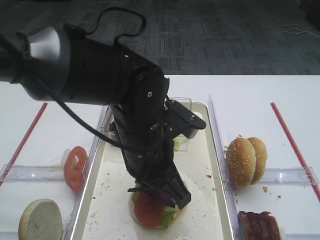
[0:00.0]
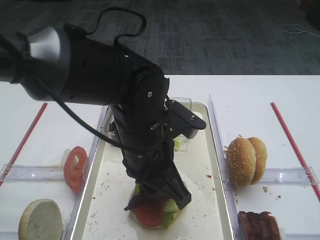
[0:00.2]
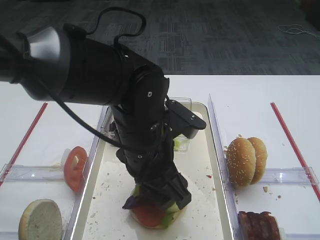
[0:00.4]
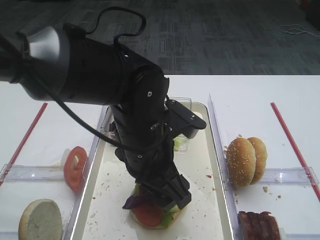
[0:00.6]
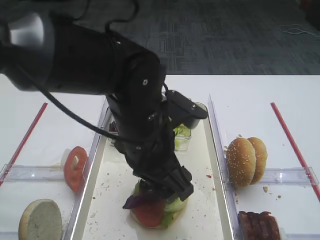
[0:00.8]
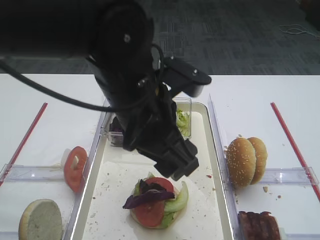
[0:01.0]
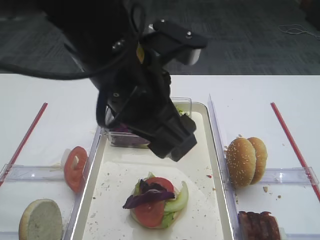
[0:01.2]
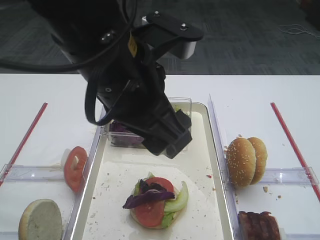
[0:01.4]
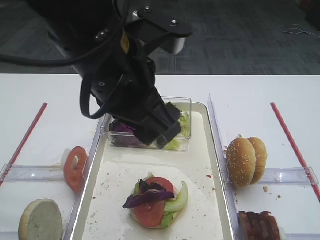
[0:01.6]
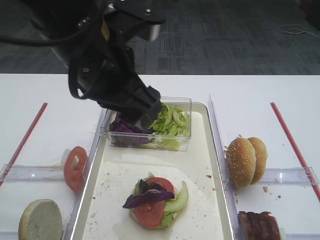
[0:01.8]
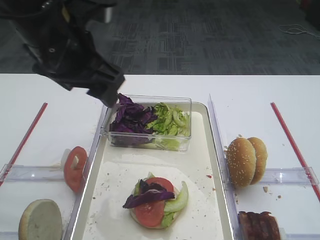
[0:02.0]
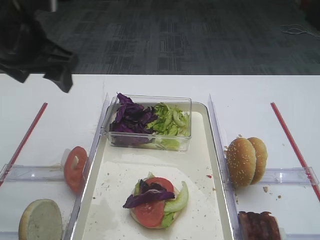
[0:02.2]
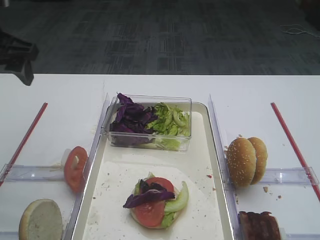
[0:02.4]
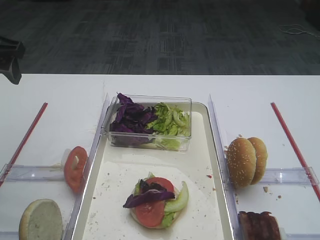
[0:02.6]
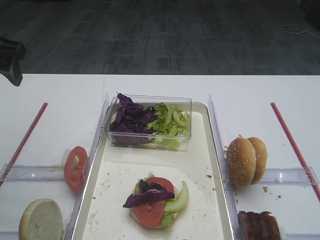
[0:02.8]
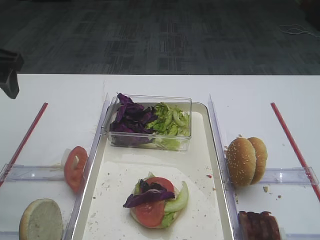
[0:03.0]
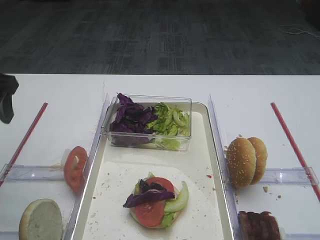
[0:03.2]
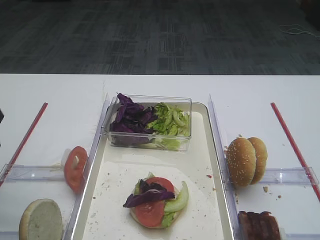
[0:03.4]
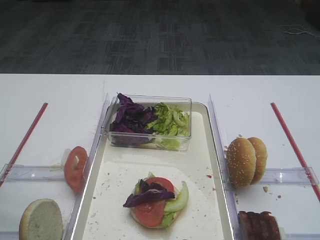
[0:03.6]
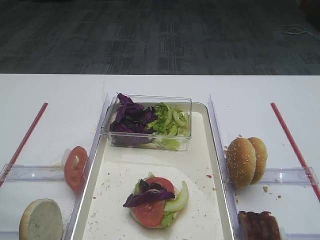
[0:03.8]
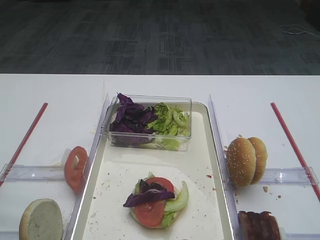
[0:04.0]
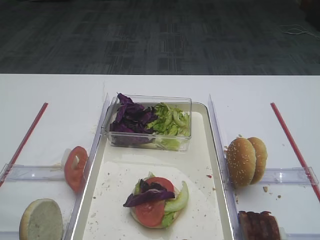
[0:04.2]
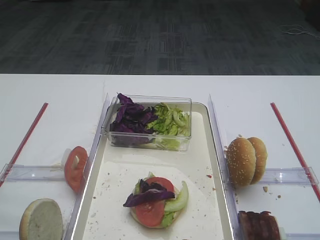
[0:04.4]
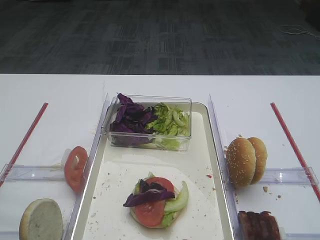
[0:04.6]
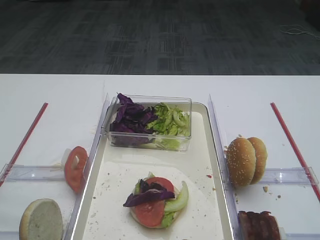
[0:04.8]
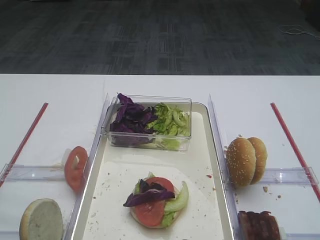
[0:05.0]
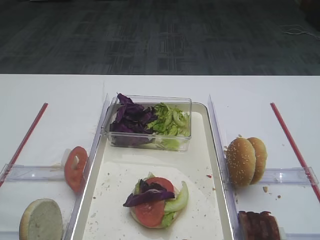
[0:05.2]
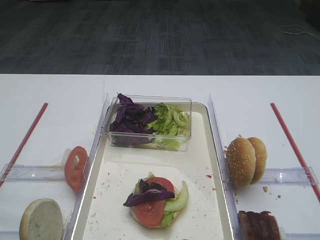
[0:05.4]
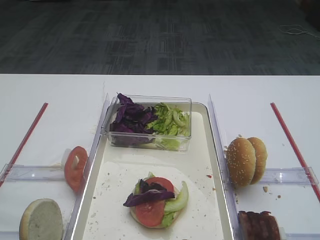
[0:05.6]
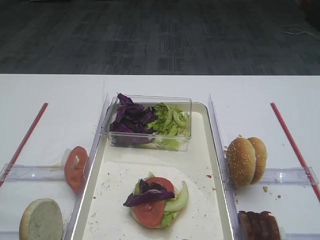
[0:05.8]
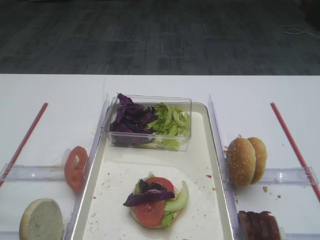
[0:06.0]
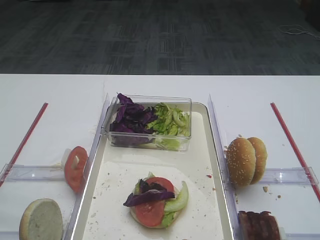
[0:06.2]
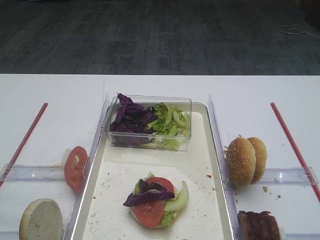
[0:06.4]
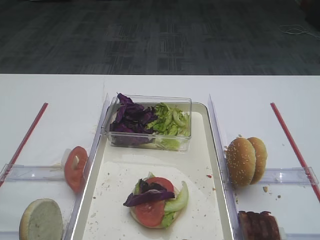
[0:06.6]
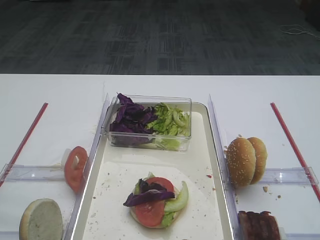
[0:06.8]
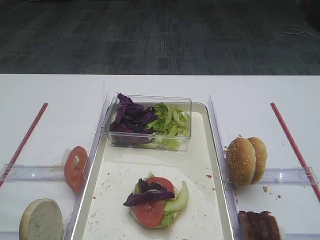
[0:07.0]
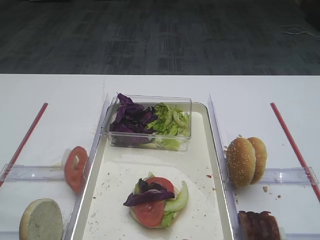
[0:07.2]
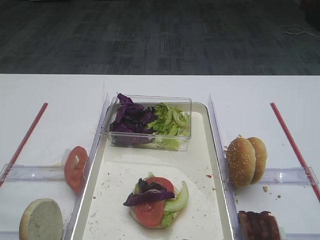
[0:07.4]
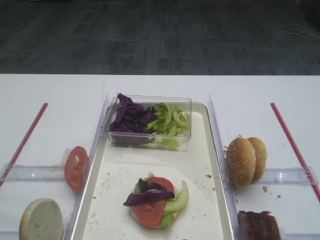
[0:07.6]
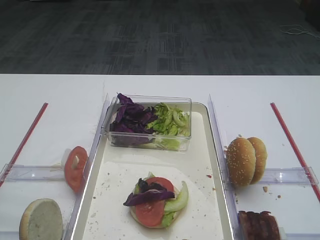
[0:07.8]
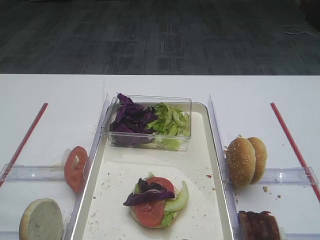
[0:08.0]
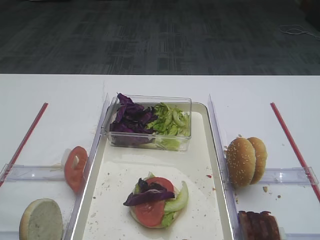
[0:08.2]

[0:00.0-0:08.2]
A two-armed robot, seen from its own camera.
0:00.0 to 0:01.6: The left gripper shifts roughly 10 cm upward, and opens.
0:01.6 to 0:03.2: The left gripper goes approximately 25 cm to the left.
0:03.2 to 0:05.0: The left gripper goes some 30 cm backward.
0:05.0 to 0:08.2: Both grippers stay about where they are.

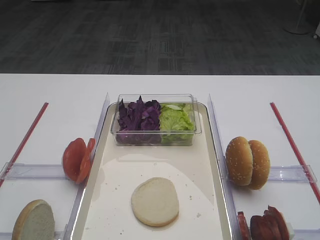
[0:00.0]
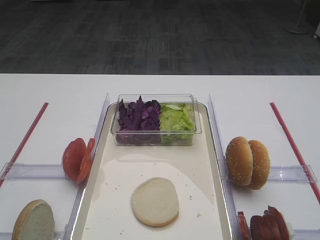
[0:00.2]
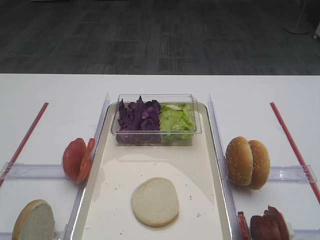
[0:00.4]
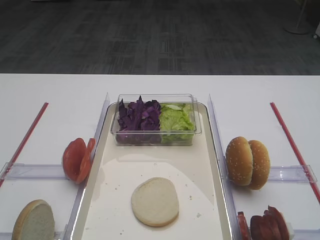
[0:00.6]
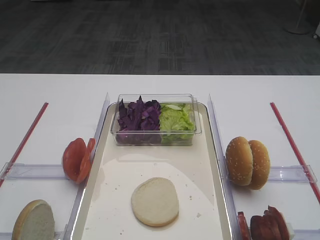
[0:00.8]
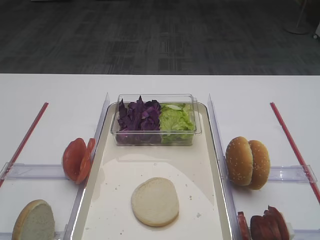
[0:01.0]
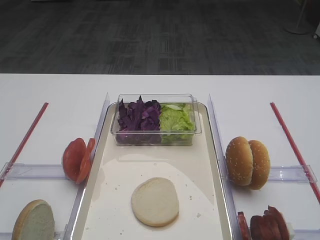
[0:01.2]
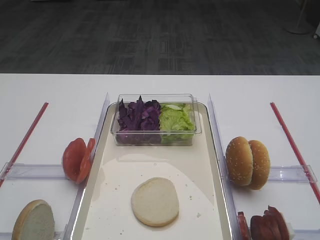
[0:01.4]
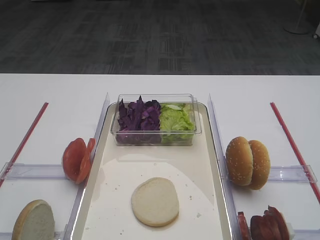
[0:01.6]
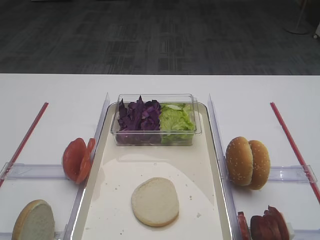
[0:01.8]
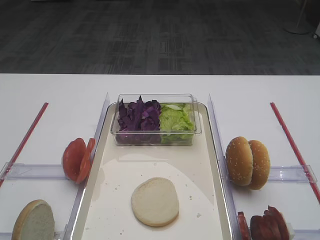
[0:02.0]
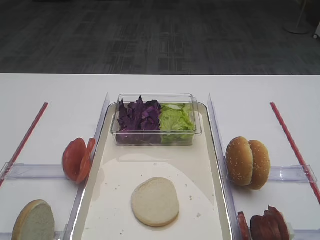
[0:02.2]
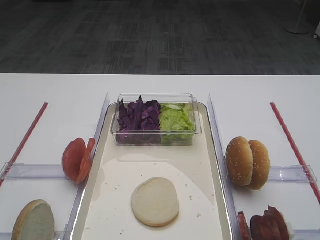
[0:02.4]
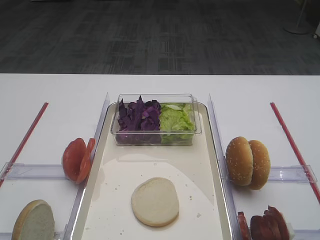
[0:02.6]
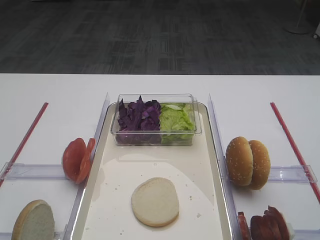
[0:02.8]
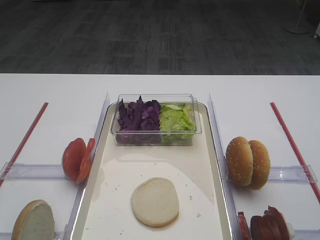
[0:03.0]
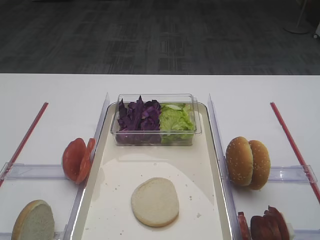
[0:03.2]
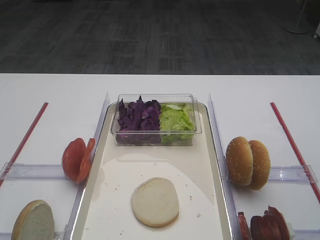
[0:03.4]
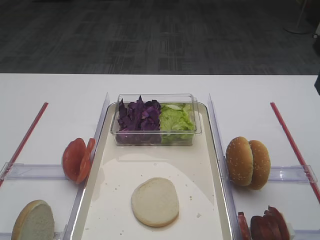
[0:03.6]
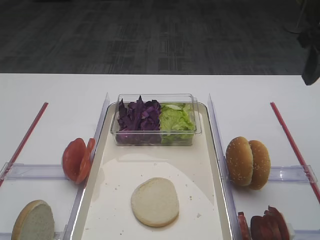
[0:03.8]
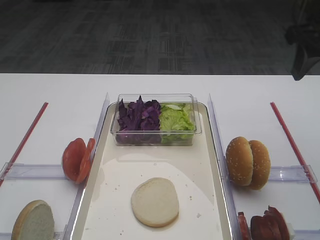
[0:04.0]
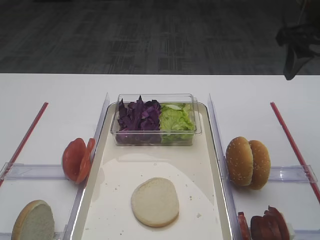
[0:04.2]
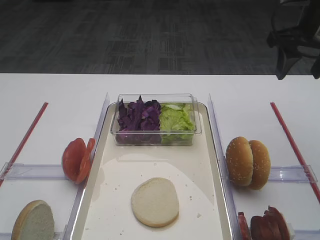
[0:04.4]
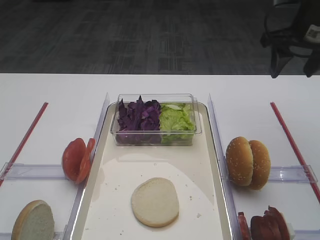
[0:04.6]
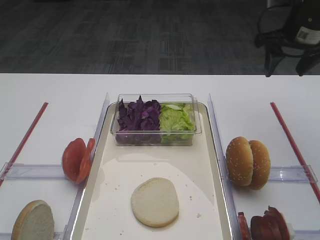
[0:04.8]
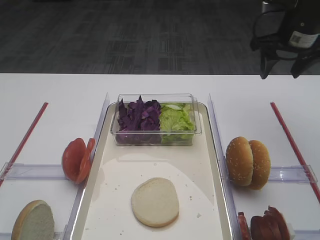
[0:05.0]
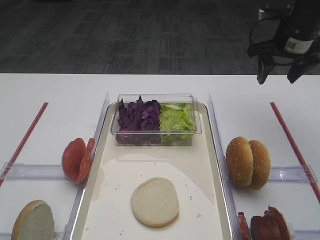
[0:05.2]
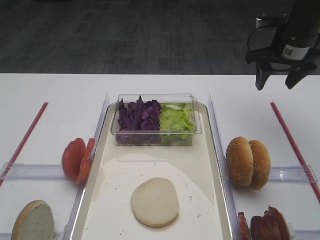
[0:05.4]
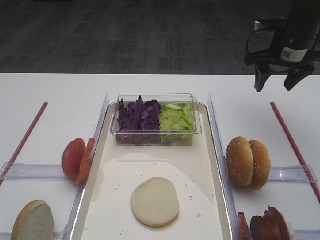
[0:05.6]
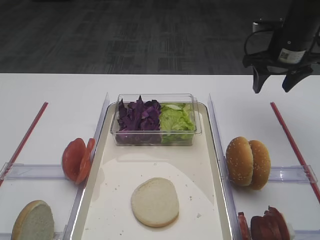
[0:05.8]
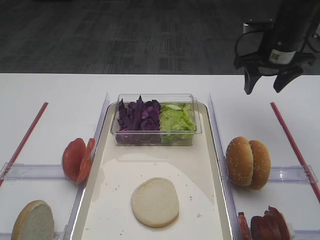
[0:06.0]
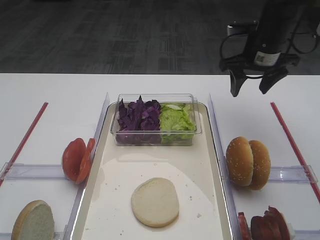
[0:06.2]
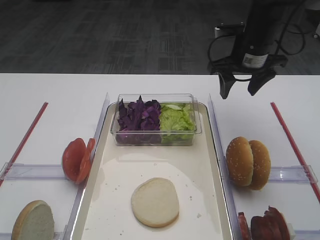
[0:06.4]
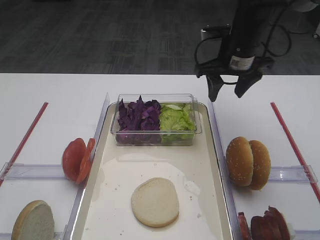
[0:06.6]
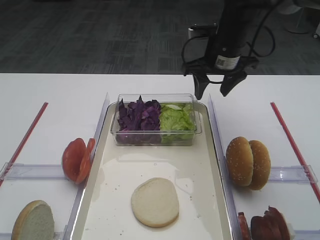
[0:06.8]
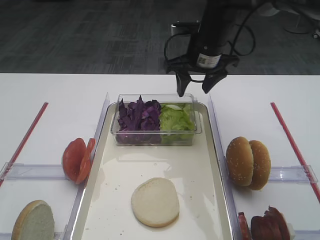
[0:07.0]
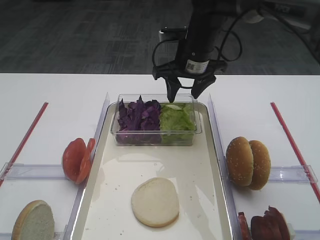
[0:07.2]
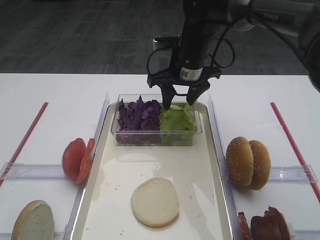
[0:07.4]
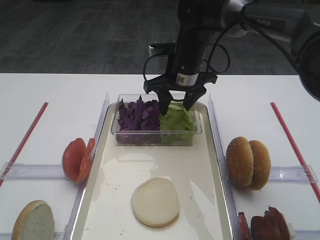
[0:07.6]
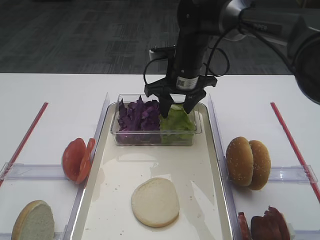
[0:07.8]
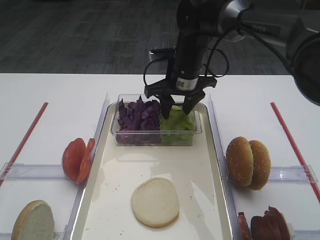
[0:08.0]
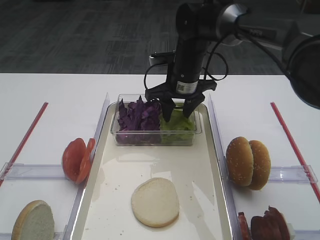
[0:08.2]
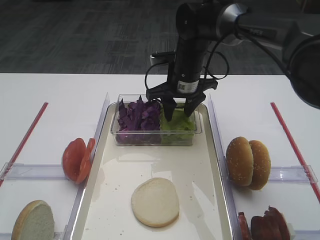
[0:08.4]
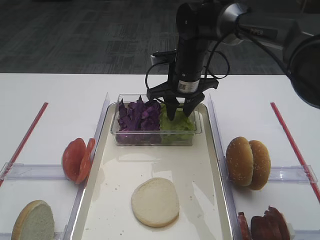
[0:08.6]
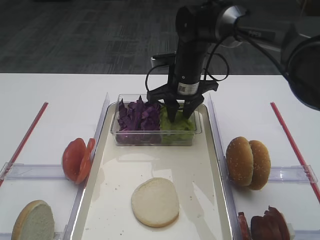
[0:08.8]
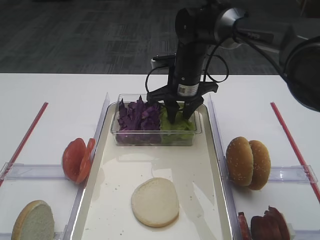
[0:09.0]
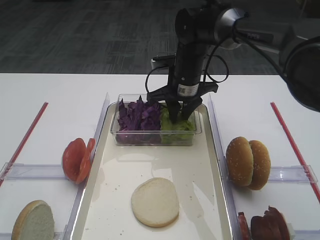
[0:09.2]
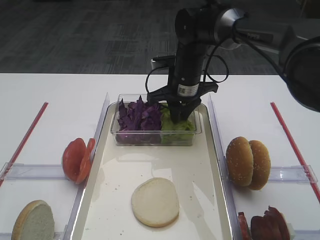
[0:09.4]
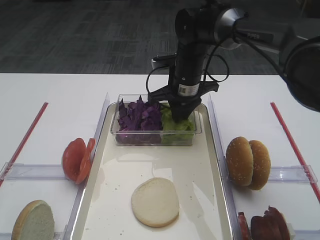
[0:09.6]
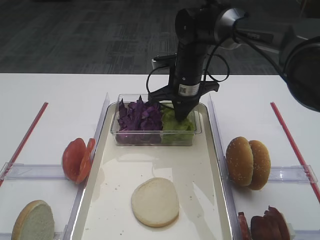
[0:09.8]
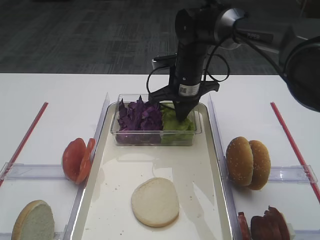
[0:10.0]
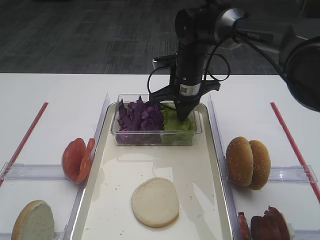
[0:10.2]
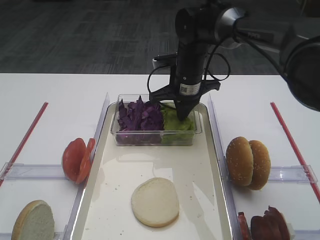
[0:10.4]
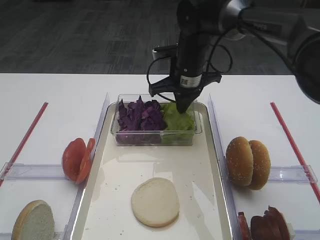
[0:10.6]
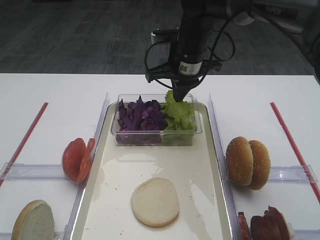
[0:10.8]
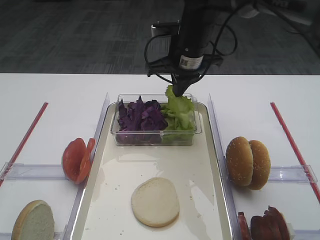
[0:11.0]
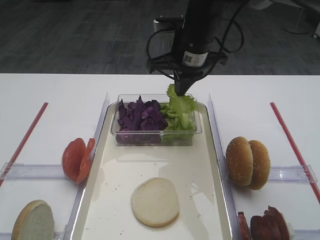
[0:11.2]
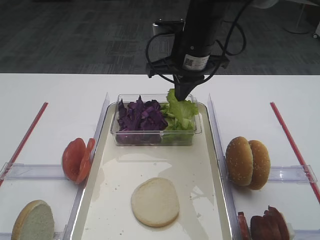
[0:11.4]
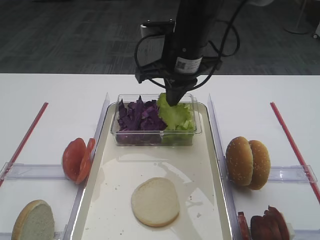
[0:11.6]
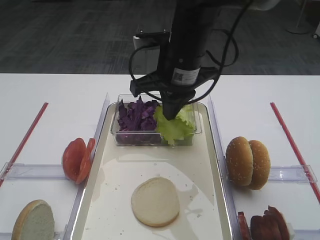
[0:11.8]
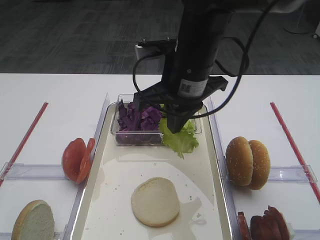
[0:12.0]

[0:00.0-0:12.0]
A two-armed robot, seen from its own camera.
Step, 0:00.0 to 0:10.8: Pick up the lettuce leaf with the right gripper.
0:03.0 to 0:04.4: The right gripper is displaced forward by approximately 20 cm.
0:04.4 to 0:06.0: The right gripper heads forward and downward, covering some 10 cm.
0:06.0 to 0:07.6: The right gripper shifts some 20 cm to the left.
0:07.6 to 0:09.0: The grippers stay close to where they were, moving slightly.
0:09.0 to 0:10.4: The right gripper closes.
0:10.4 to 0:12.0: The right gripper moves backward and upward, approximately 15 cm.

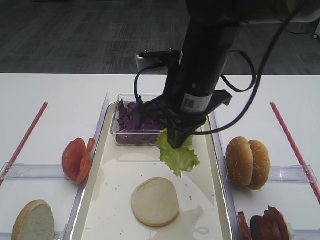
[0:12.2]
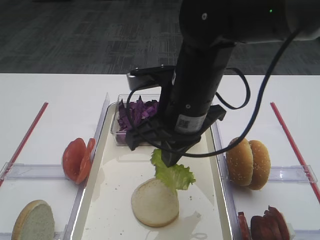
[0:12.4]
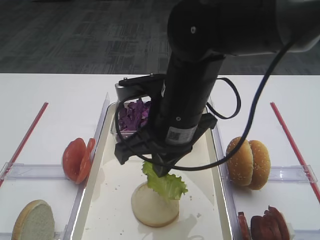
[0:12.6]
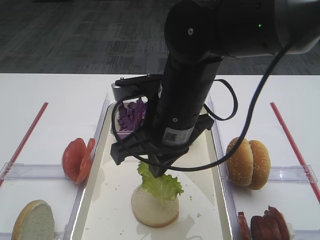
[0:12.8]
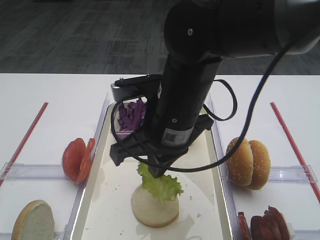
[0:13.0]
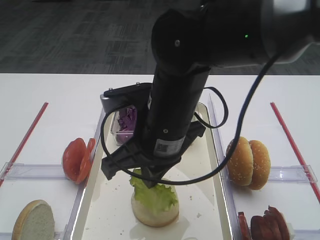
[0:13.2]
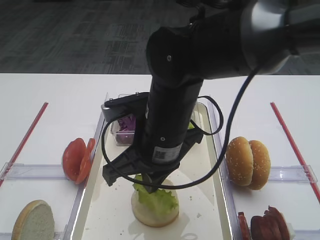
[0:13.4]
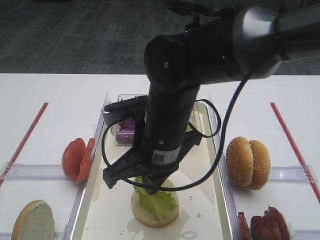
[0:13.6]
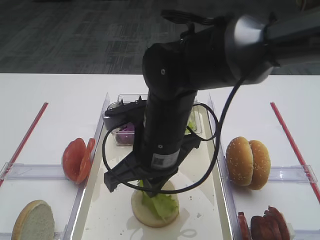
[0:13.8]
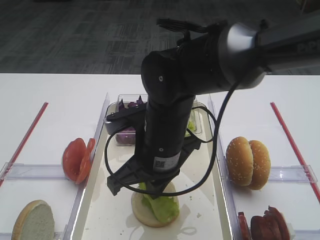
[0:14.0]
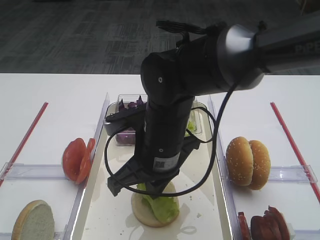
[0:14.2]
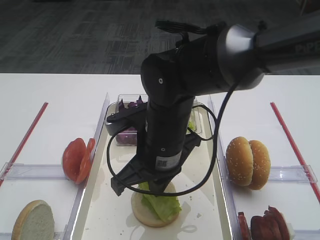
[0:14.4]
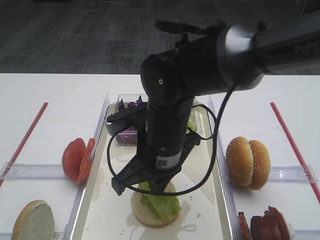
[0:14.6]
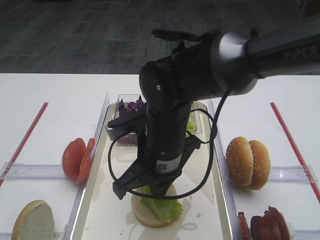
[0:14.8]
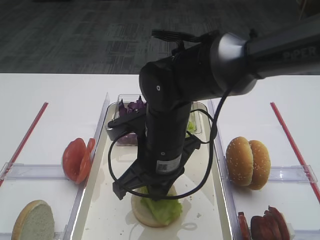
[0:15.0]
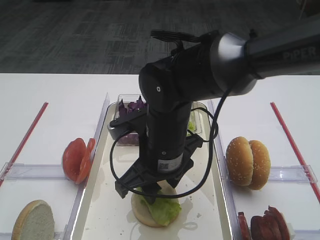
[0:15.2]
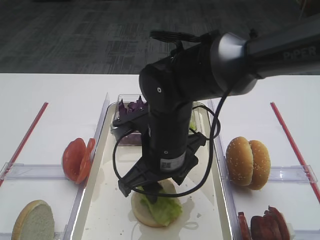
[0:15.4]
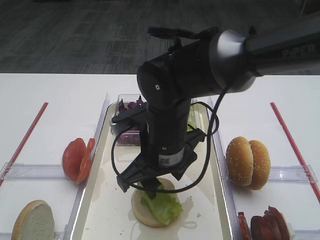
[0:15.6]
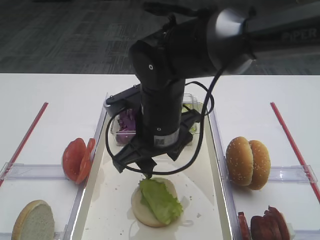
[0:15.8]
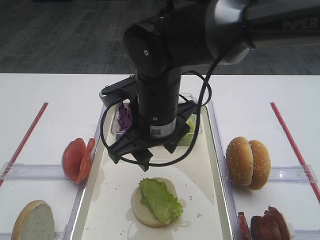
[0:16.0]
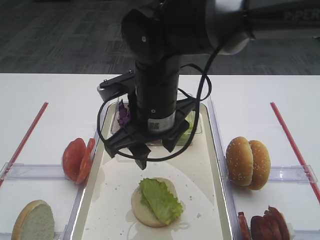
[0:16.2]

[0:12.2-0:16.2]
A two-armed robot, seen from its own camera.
Step, 0:12.2 to 0:15.6: Place the lettuce leaf on the bread slice with the right gripper.
0:12.2 to 0:13.6: The right gripper is displaced downward and backward by about 5 cm.
0:13.6 to 0:14.8: The grippers move only a little.
0:14.8 to 0:16.2: The right gripper ends up roughly 5 cm from where it was, and opens.